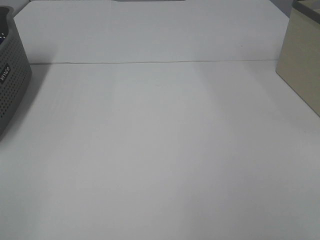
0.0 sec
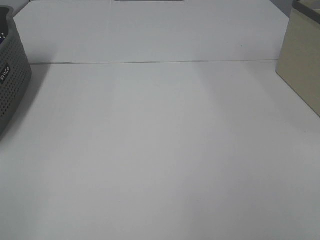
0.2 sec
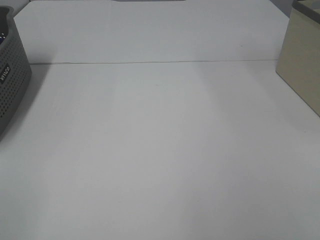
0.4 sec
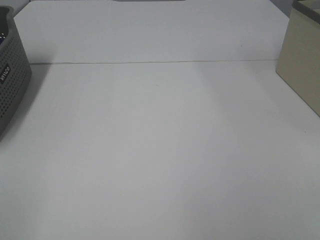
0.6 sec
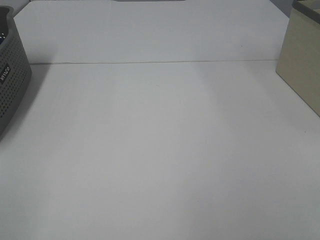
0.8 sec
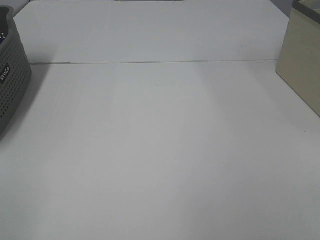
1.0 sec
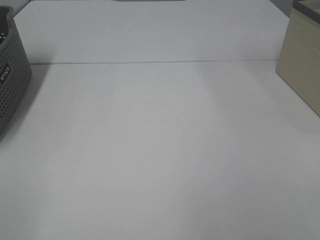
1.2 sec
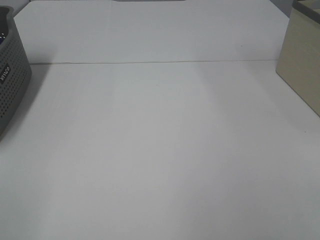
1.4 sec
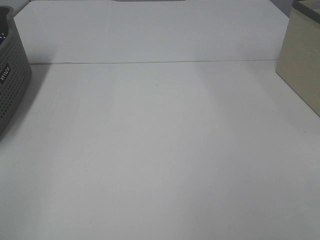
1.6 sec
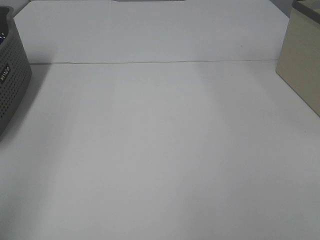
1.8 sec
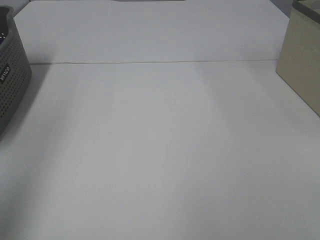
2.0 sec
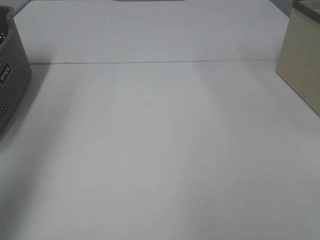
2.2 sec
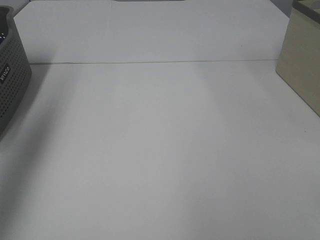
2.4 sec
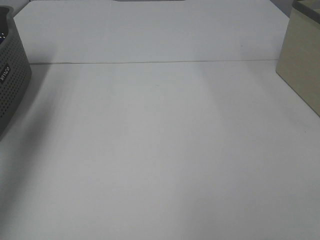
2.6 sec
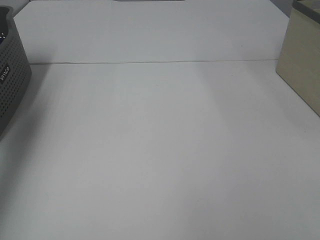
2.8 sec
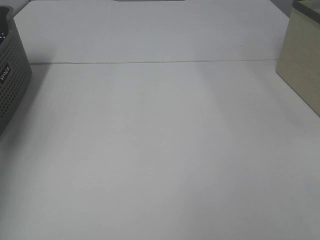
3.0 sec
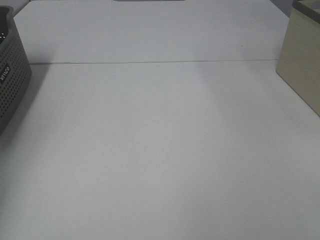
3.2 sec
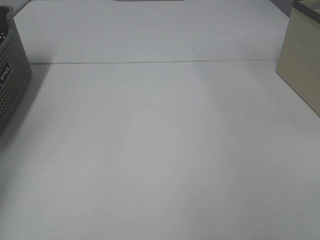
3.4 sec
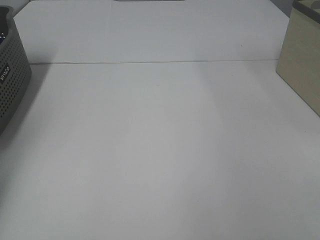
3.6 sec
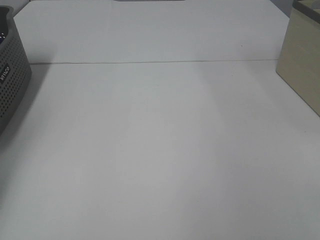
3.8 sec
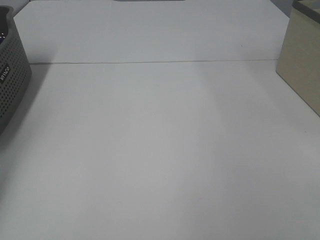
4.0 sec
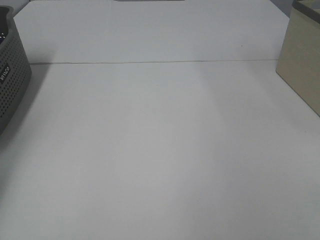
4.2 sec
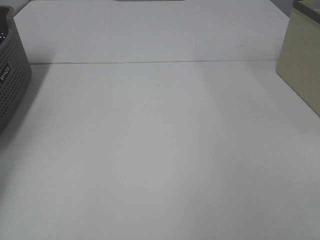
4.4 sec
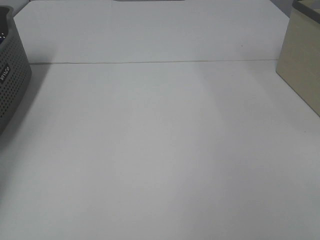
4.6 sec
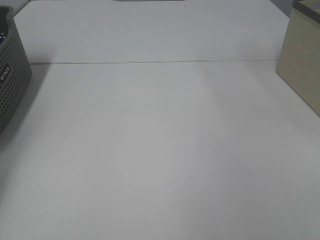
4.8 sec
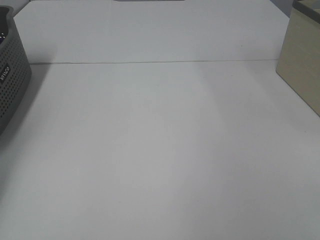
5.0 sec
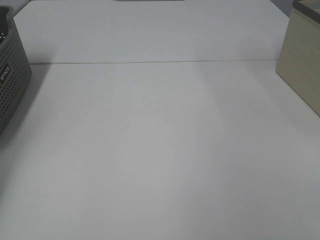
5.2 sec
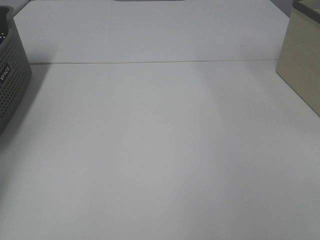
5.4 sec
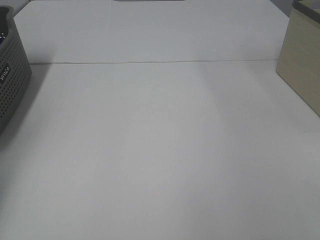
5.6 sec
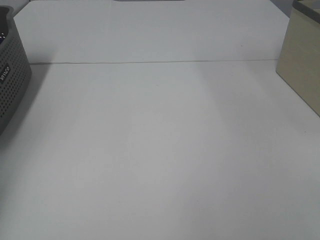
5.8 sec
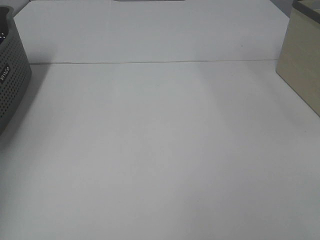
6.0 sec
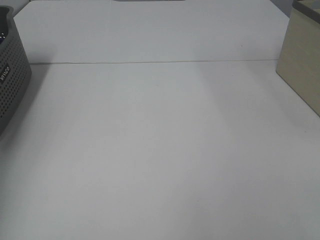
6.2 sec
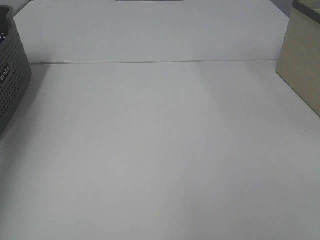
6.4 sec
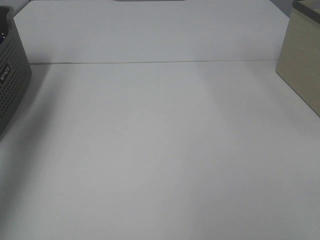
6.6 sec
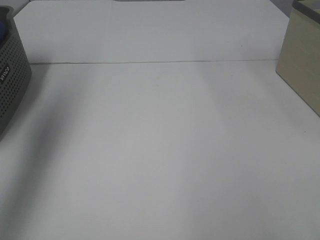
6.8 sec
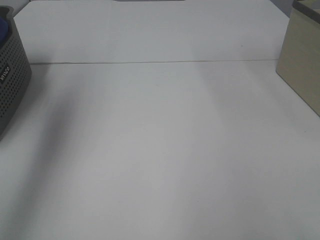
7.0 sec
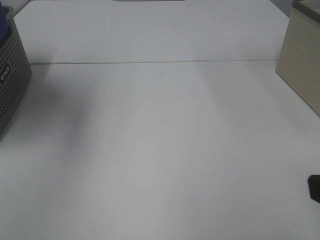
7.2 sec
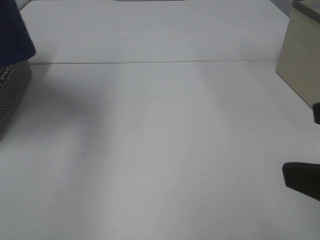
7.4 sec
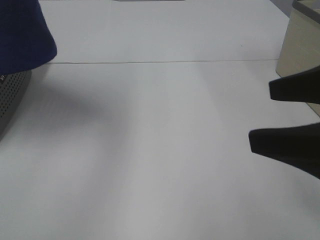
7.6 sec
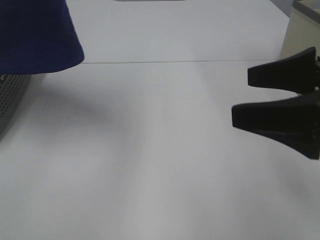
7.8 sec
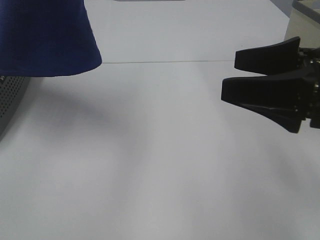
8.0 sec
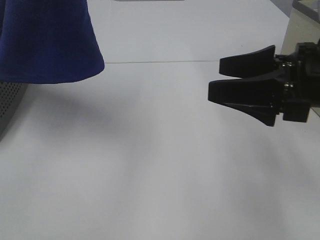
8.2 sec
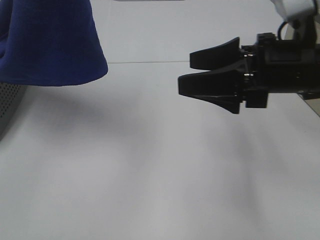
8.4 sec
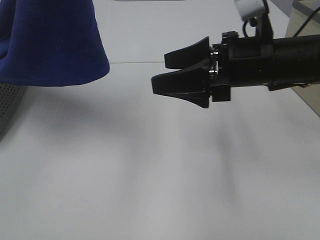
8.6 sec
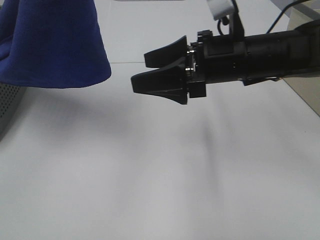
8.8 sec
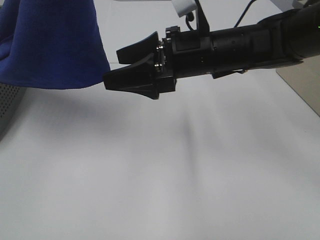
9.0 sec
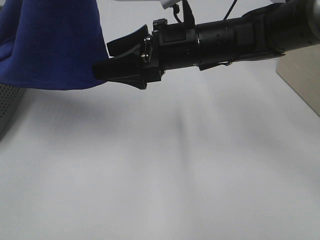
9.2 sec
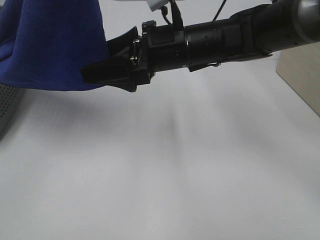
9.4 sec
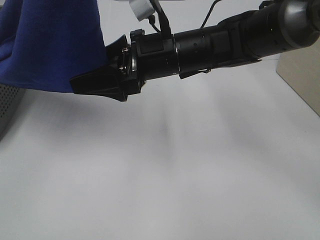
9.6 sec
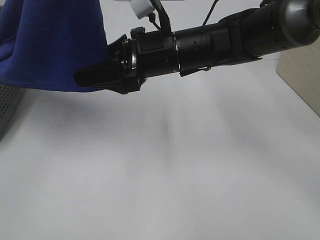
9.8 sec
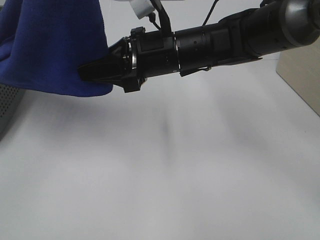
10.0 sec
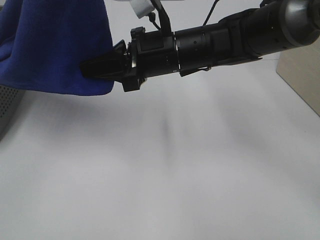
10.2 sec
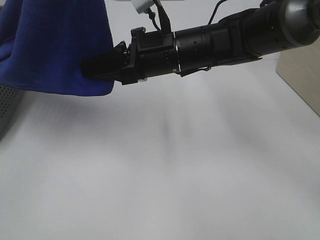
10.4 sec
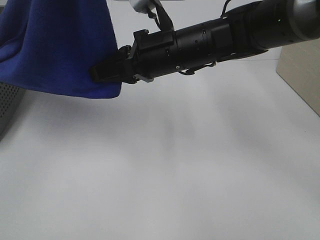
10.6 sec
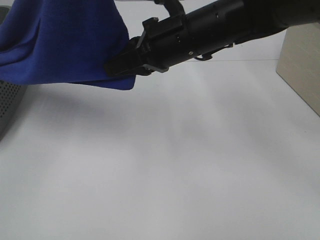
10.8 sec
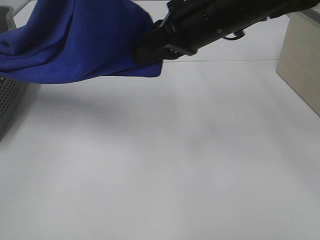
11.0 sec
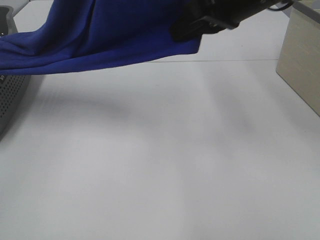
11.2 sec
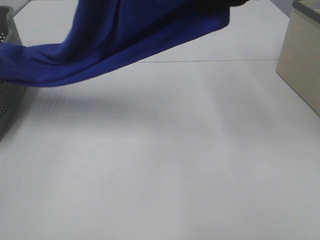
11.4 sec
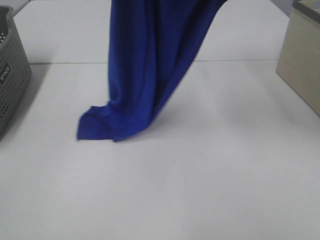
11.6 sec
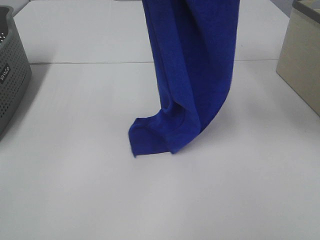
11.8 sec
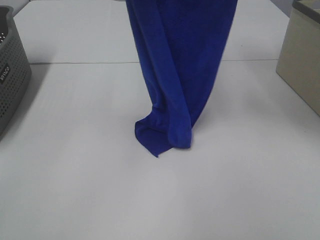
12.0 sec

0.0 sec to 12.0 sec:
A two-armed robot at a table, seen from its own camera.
Task of the whole recording: Remove the towel and place it.
Step, 7.2 sec to 10.4 sec: Right hand: grab a corner of the blue towel and straighten it.
1.6 sec to 3.0 sec: The left gripper shifts approximately 40 cm forward.
6.0 sec to 7.6 sec: The right gripper is displaced forward by approximately 15 cm. The left gripper travels to the right, upward and backward by approximately 35 cm.
7.6 sec to 9.0 sec: The right gripper is displaced forward and to the left by some 25 cm.
9.0 sec to 10.4 sec: The right gripper closes its fingers.
10.4 sec to 12.0 sec: The right gripper is displaced upward and to the right by about 30 cm, while the left gripper is displaced forward by about 10 cm.

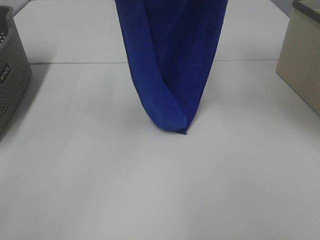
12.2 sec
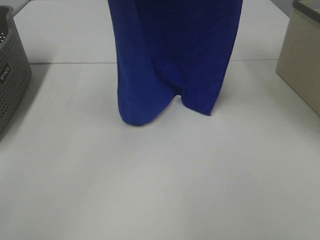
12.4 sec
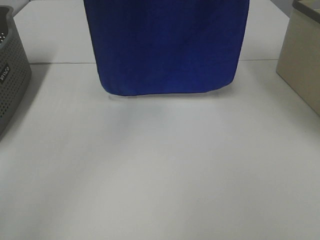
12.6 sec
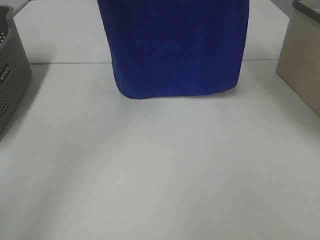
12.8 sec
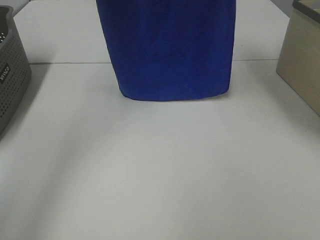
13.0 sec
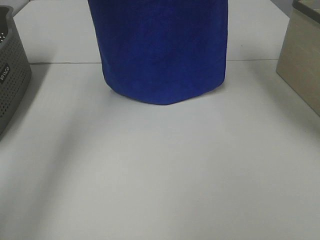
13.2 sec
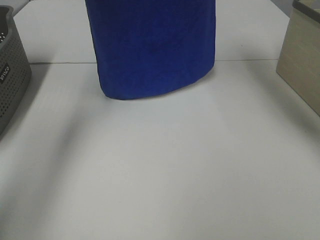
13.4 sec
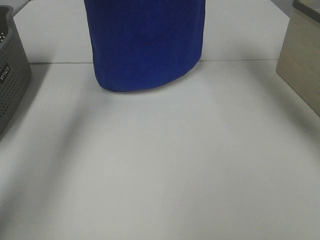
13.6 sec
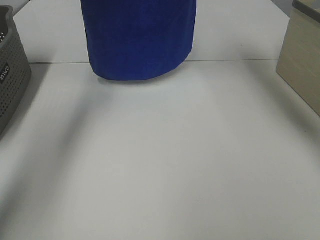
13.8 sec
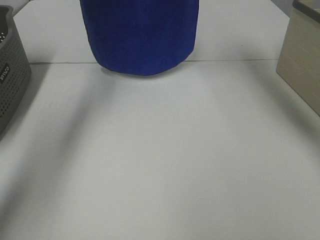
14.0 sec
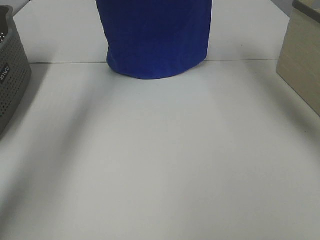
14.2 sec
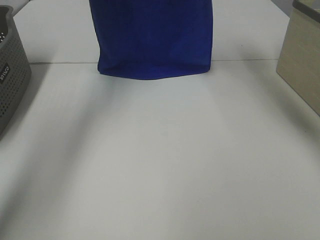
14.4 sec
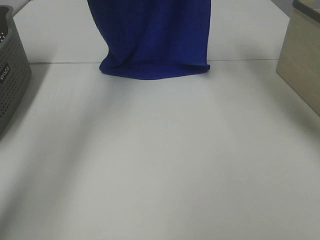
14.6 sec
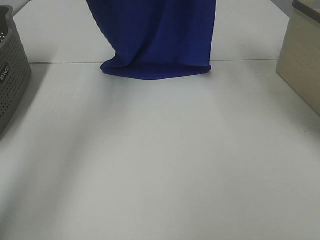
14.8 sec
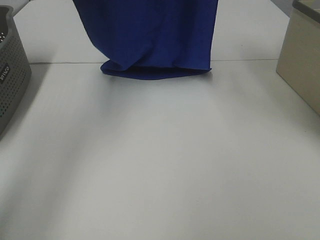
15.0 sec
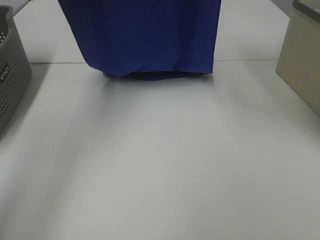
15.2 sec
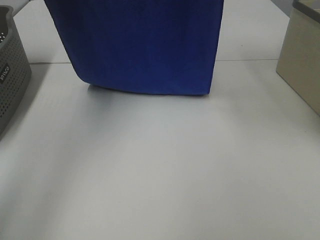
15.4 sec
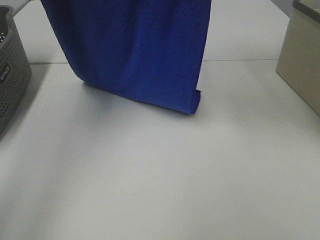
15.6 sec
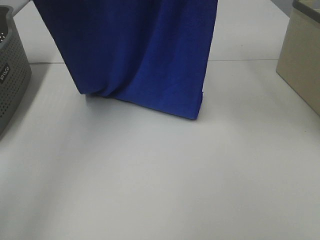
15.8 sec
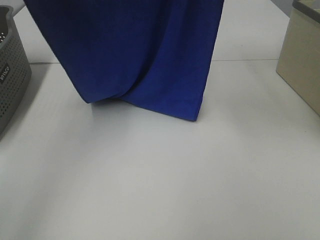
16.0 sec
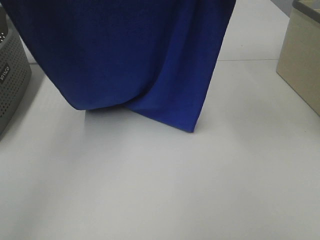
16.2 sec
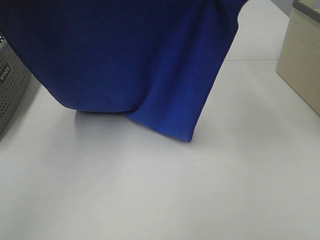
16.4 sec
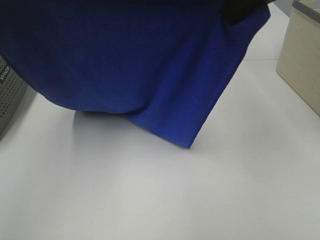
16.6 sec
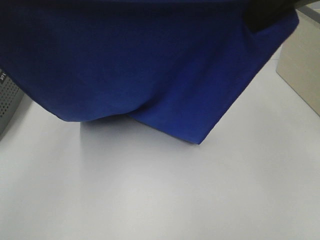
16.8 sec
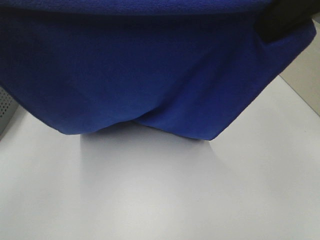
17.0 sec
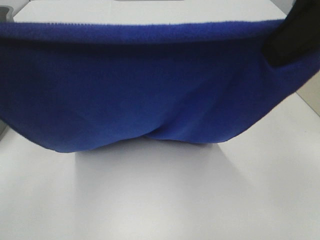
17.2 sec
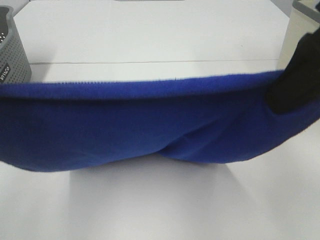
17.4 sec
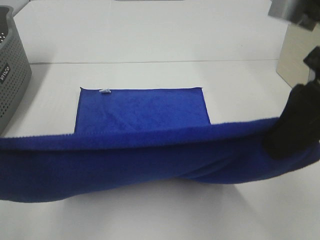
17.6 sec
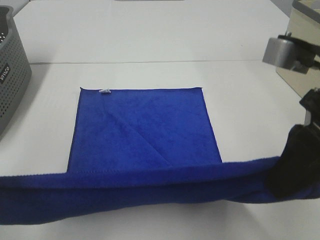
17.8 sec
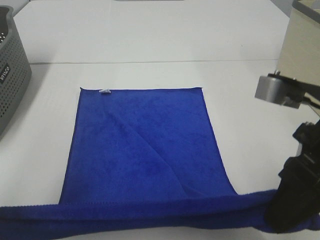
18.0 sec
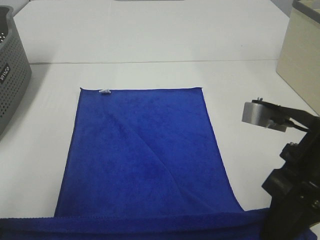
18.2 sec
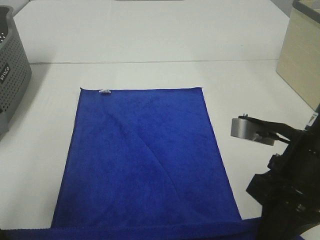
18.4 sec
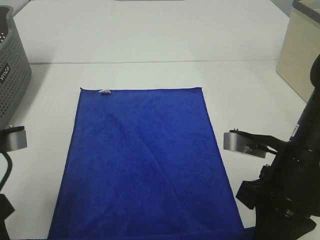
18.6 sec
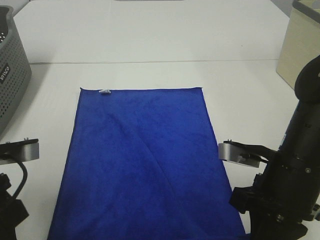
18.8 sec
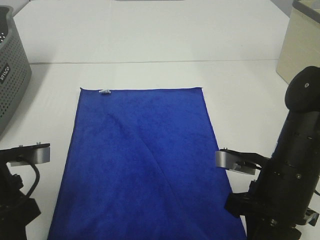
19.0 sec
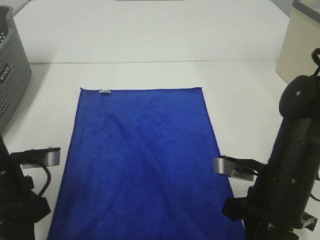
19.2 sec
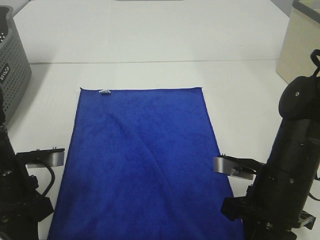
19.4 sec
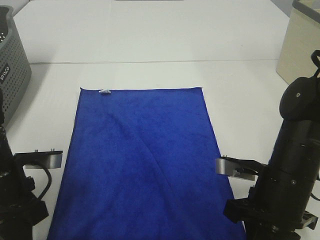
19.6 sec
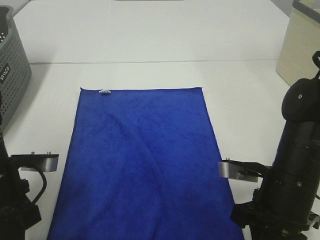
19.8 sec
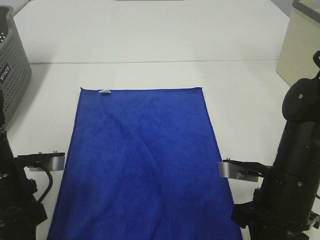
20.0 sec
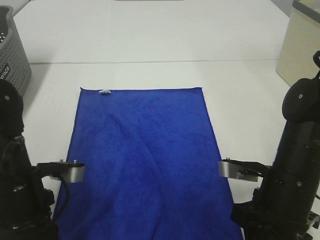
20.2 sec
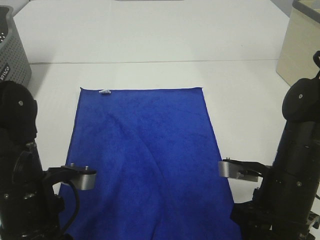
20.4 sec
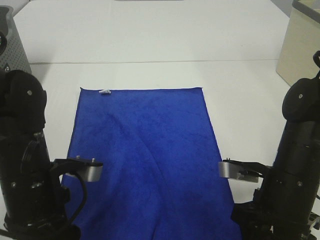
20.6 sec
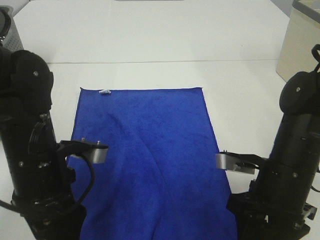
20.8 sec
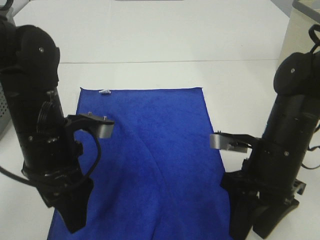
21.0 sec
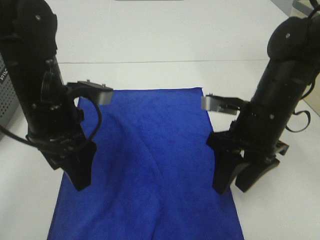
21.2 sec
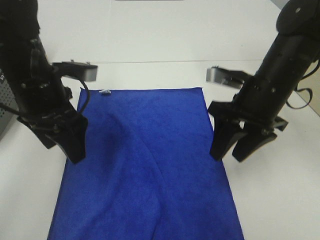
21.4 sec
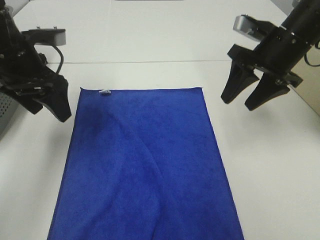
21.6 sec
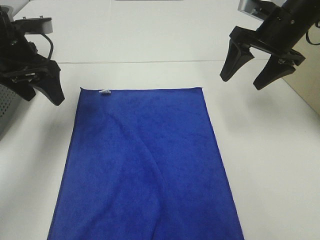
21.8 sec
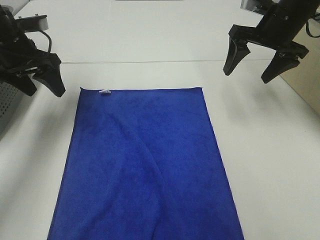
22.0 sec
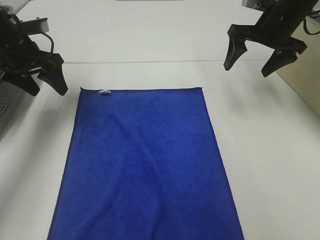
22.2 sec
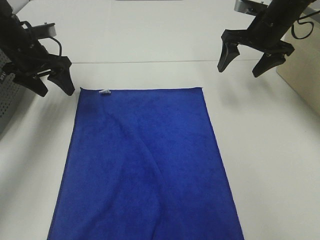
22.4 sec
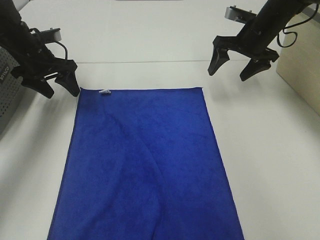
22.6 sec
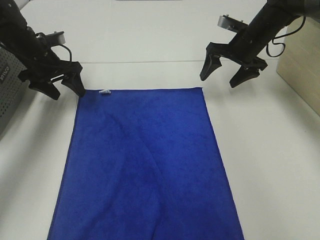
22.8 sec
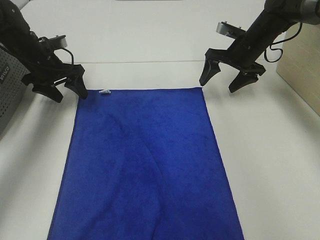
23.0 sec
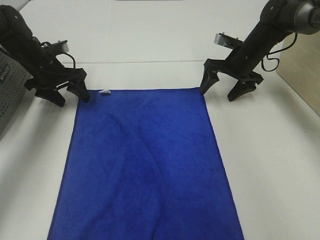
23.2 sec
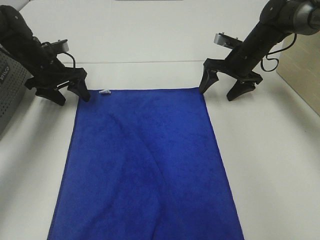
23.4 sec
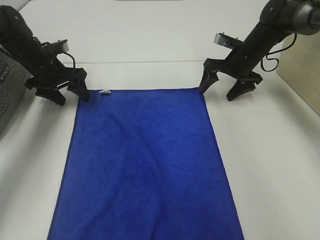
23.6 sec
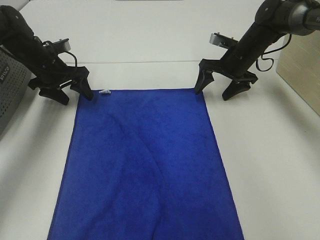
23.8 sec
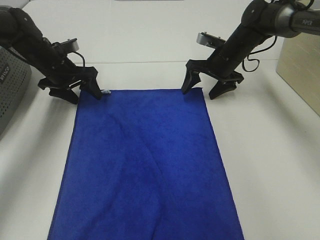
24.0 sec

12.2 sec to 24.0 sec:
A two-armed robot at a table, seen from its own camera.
Task of the whole recording: Remove the towel and place it.
Step, 12.2 sec to 16.2 sec: Left hand: spread the blue towel flat on the table.
Step, 12.2 sec to 16.2 sec: Right hand: spread the blue towel flat on the table.
Step, 16.4 sec to 23.2 sec: Left hand:adjust the blue towel.
Step, 16.4 sec to 23.2 sec: Right hand:adjust the blue towel.
12.2 sec to 13.6 sec: The left gripper shifts some 15 cm forward and to the left; the right gripper shifts some 10 cm forward.
13.6 sec to 15.2 sec: The grippers both shift backward by roughly 10 cm.
15.2 sec to 16.6 sec: The left gripper moves backward, about 15 cm. Meanwhile the right gripper shifts some 15 cm backward and downward.
16.6 sec to 18.2 sec: Both grippers move downward and backward, roughly 20 cm.
18.2 sec to 19.6 sec: The left gripper moves downward and forward, about 15 cm. Meanwhile the right gripper heads downward, covering approximately 10 cm.
19.6 sec to 21.0 sec: The right gripper opens its fingers. The left gripper travels to the right by approximately 10 cm, and opens its fingers.
21.0 sec to 22.6 sec: The left gripper goes some 25 cm forward and to the left; the right gripper shifts some 25 cm forward, and opens up.
22.6 sec to 24.0 sec: The right gripper is displaced downward by approximately 5 cm, while the left gripper ends up about 5 cm from where it was.
